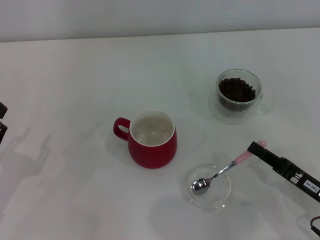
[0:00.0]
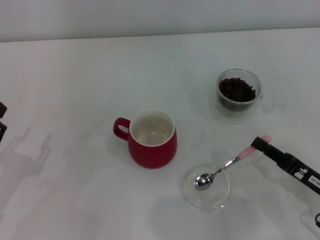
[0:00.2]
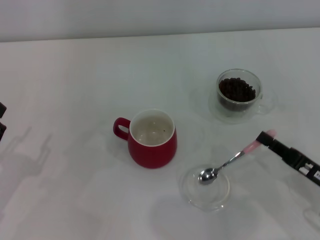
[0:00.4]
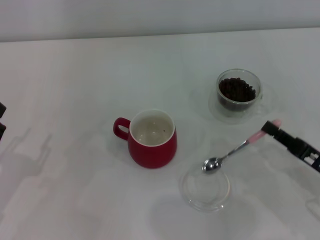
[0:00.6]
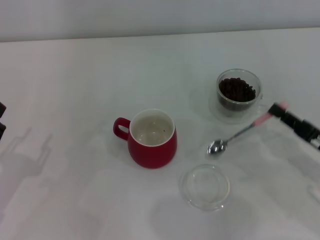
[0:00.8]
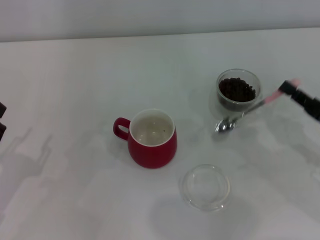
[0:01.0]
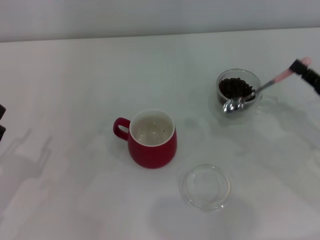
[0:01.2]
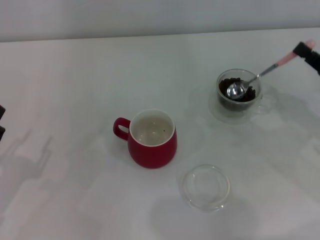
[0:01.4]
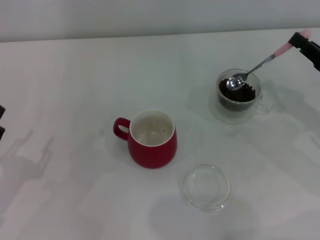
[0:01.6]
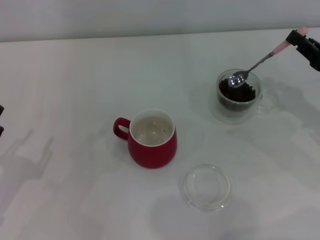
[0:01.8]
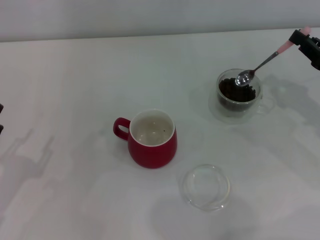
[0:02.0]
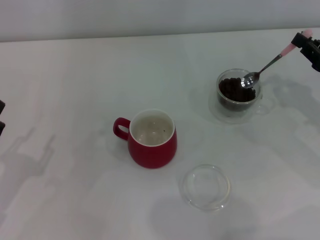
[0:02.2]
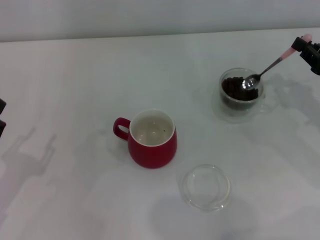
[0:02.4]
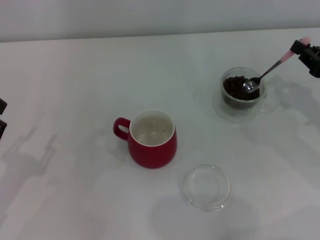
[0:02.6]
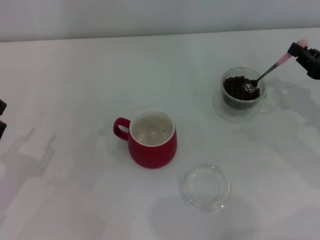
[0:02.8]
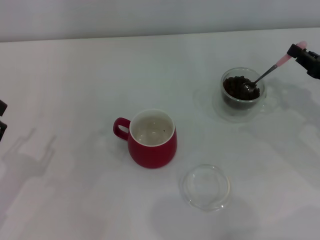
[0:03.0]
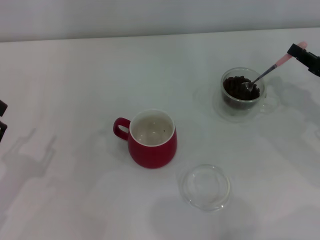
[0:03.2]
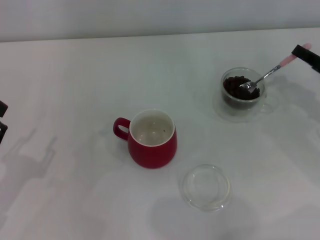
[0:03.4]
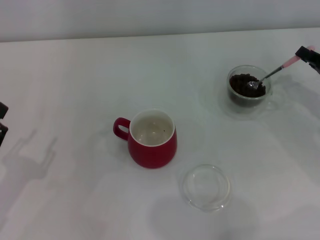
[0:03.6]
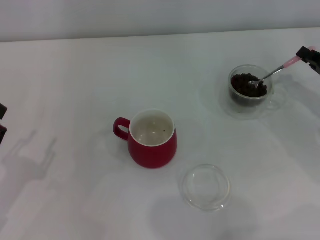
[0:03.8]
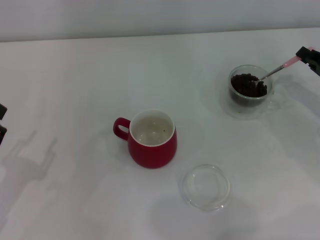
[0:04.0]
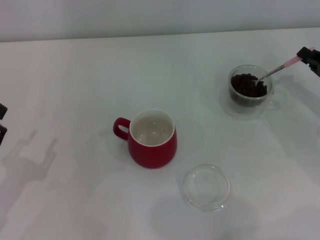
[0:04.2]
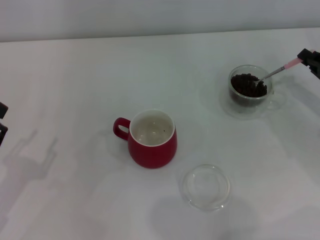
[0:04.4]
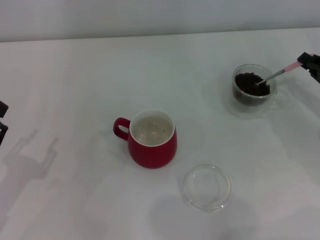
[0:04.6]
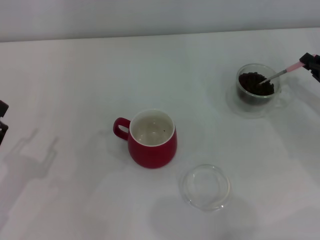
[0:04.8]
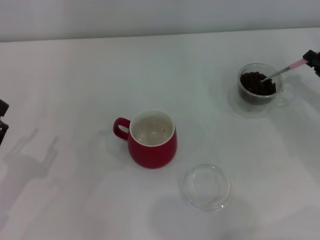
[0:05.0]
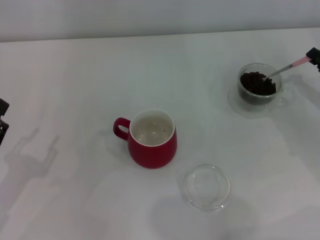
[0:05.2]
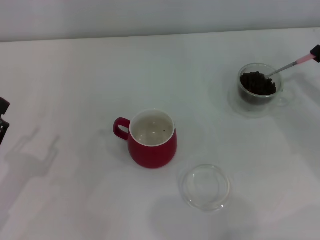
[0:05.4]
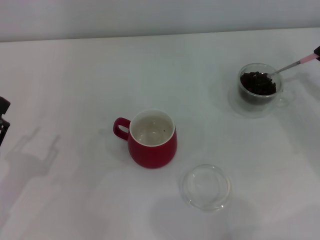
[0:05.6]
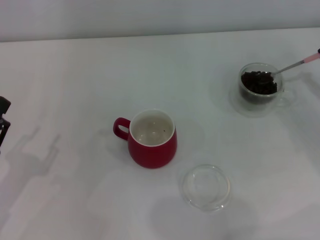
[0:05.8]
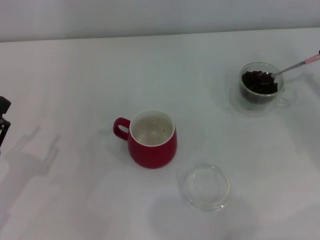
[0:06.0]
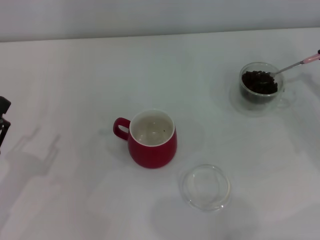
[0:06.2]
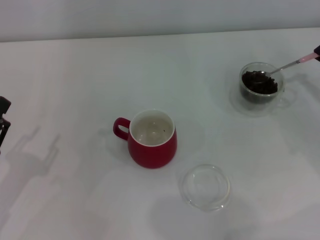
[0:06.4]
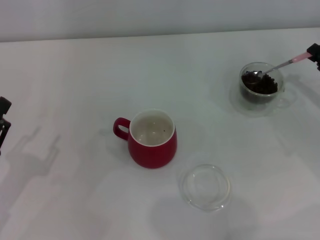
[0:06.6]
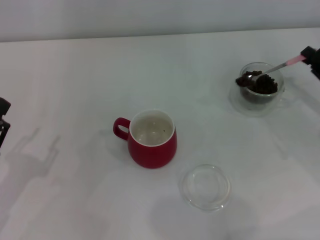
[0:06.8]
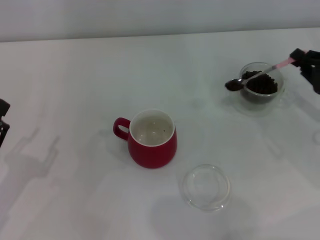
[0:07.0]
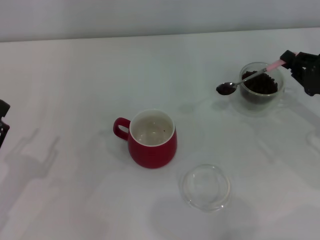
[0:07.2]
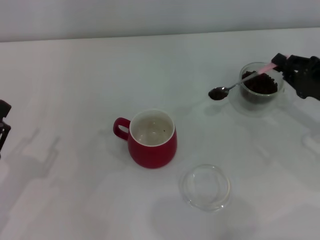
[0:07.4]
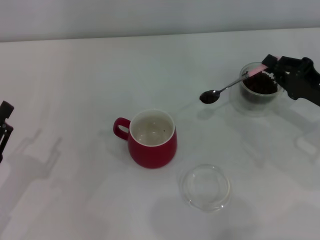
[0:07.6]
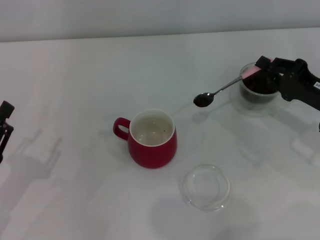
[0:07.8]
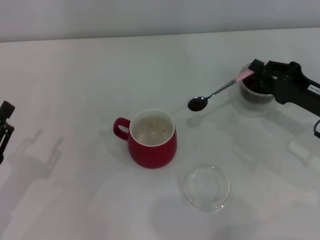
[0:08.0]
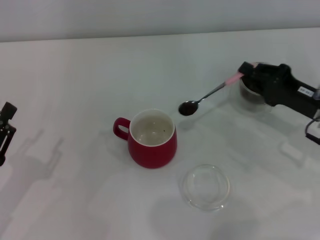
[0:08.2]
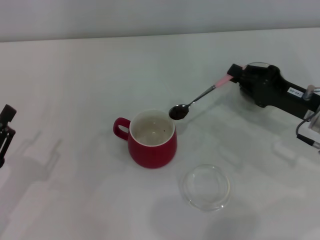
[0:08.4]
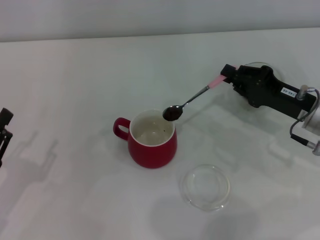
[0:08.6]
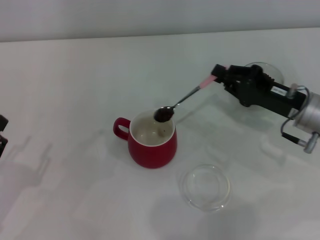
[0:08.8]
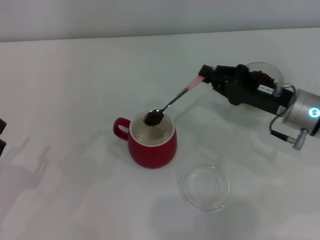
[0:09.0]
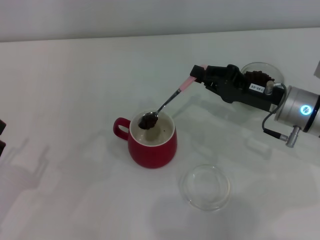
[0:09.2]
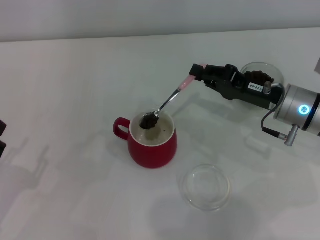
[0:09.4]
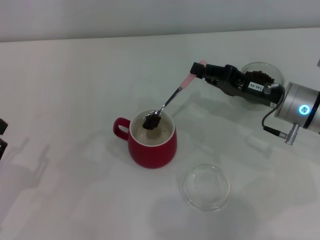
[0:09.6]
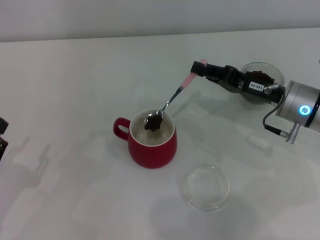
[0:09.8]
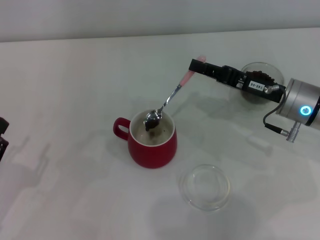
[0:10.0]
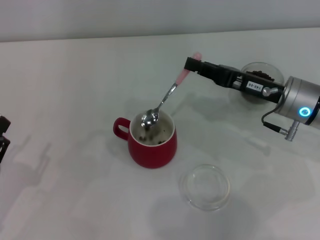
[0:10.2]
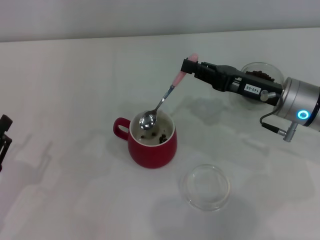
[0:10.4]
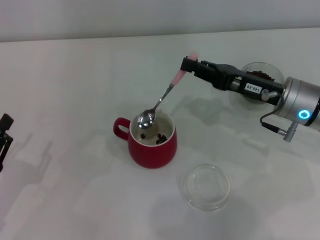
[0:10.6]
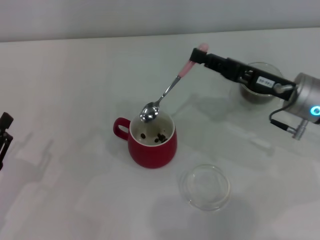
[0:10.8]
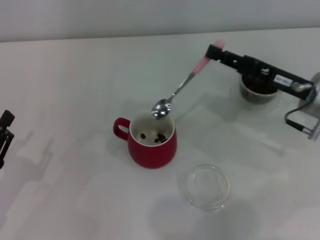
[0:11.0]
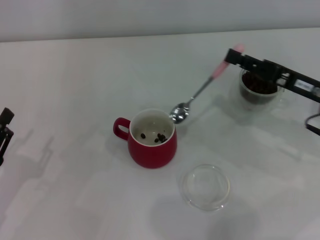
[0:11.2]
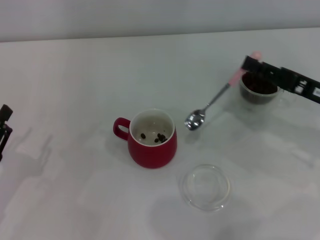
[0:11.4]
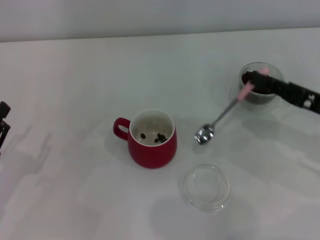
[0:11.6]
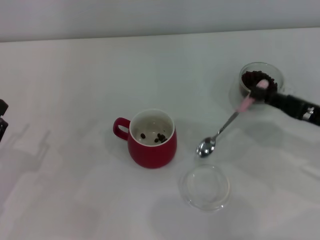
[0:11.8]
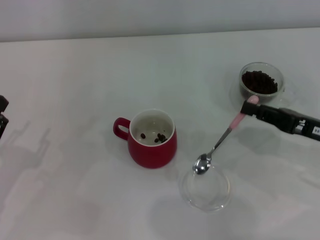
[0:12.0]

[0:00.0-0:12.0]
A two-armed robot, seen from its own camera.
Task of the whole recording: Use a pink spoon to take out the coffee beans from the glass and pour them into the red cup.
Step, 0:00.8 to 0:10.8: Scoop a spoonful of beans into the cup with the right gripper.
0:00.0 to 0:01.6: The right gripper is displaced forward, upward and to the right by some 15 cm.
0:01.6 to 0:03.0: The grippers make only small movements.
0:04.4 to 0:06.0: The grippers stay close to where they were, moving slightly.
0:06.0 to 0:07.6: The right gripper moves to the left, roughly 5 cm.
0:07.6 to 0:09.0: The right gripper travels to the left by some 10 cm.
0:10.4 to 0:12.0: The right gripper travels to the right and backward by about 10 cm.

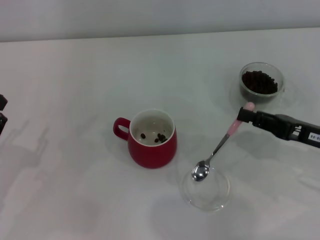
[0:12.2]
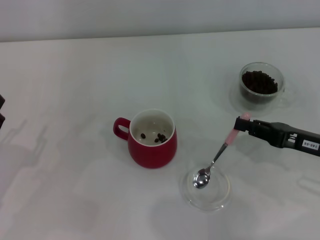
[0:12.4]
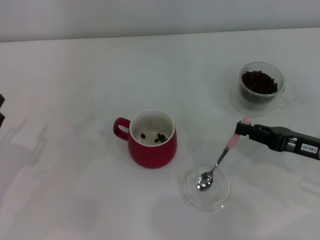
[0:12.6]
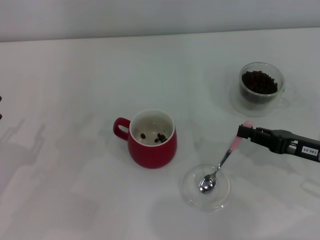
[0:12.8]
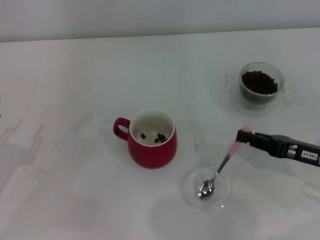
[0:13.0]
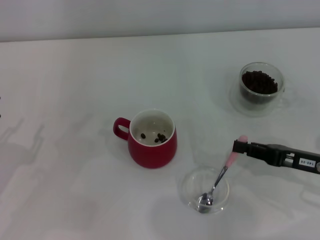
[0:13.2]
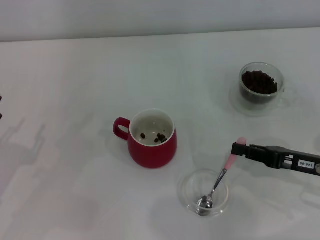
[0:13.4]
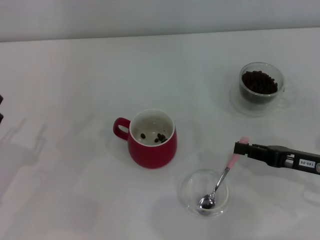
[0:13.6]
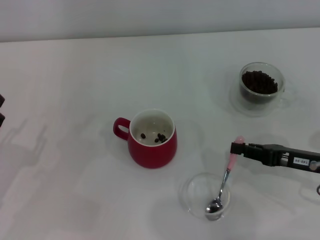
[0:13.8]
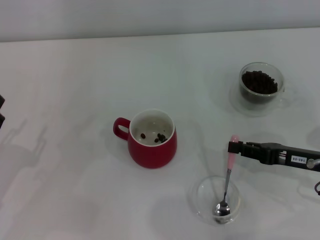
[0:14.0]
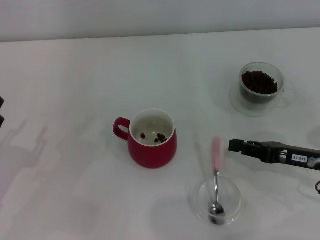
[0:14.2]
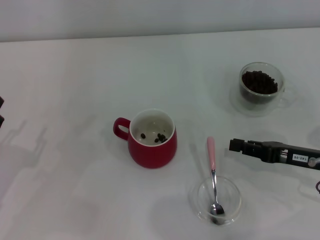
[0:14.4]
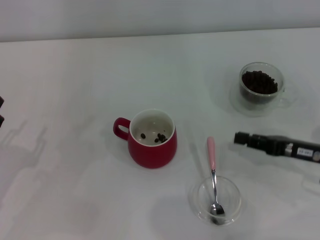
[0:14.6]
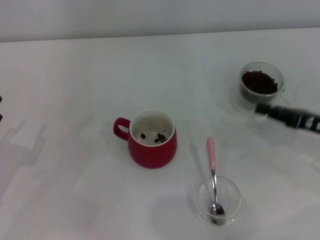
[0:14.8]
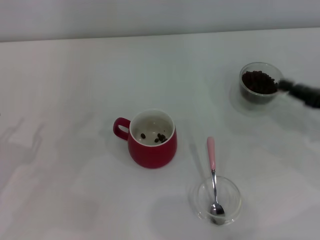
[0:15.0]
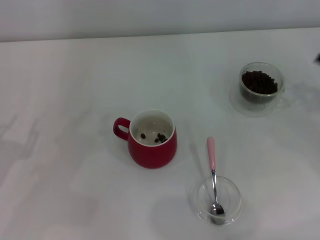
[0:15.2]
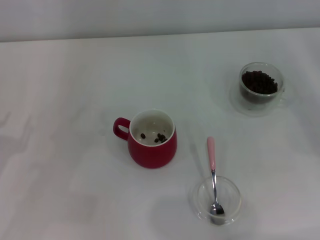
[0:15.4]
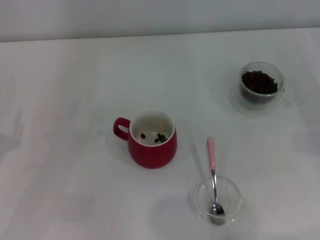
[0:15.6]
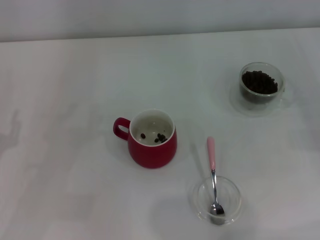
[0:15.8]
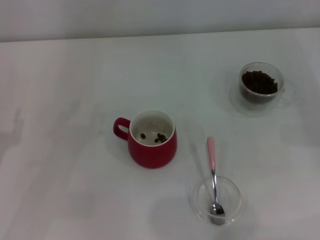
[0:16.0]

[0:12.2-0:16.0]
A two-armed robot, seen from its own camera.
Task of the whole recording: Use a pink spoon to take out the coffee beans from the glass and pour them into the red cup.
Step, 0:12.2 to 0:14.2: Place the spoon back in its original place with the right gripper.
0:12.2 to 0:14.8: The grippers move only a little.
0:14.8 to 0:16.0: The right gripper shifts approximately 10 cm to the right.
